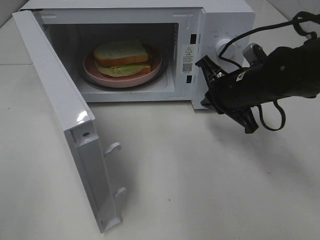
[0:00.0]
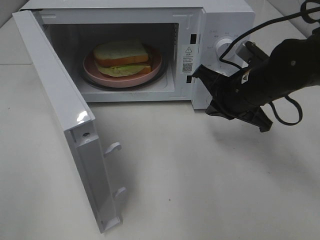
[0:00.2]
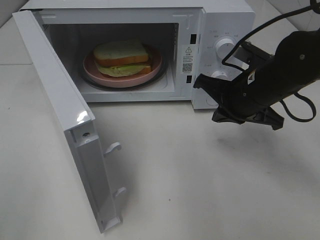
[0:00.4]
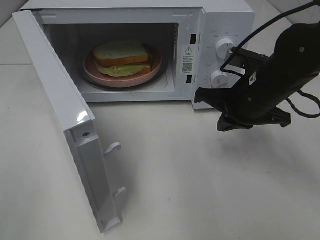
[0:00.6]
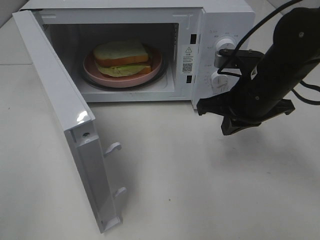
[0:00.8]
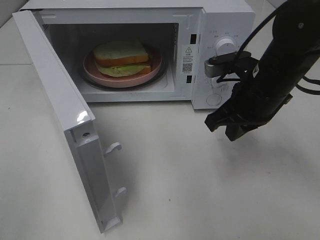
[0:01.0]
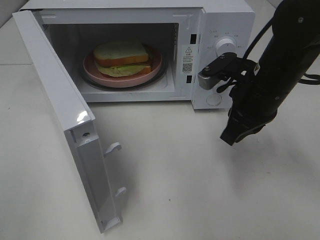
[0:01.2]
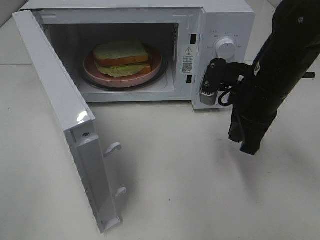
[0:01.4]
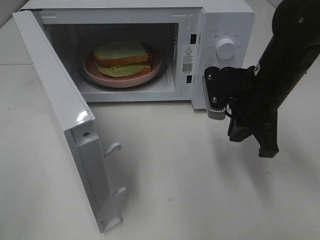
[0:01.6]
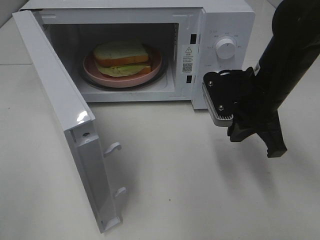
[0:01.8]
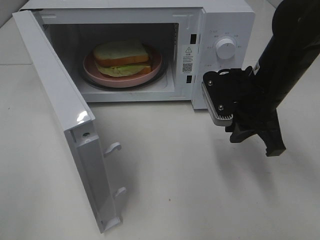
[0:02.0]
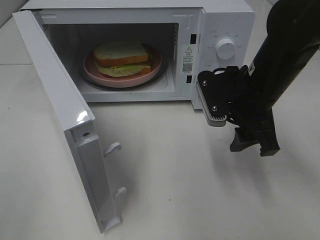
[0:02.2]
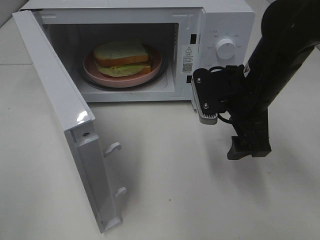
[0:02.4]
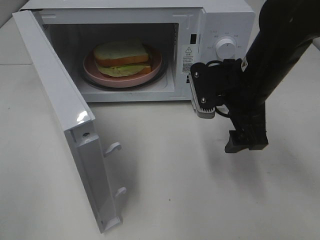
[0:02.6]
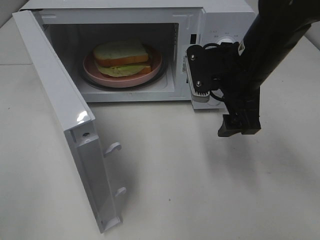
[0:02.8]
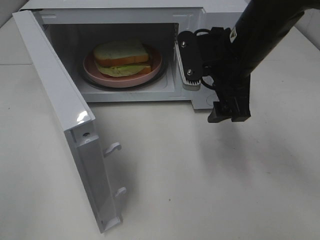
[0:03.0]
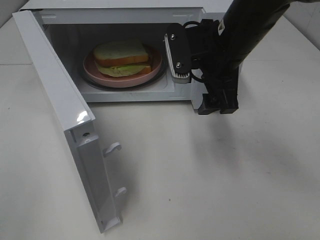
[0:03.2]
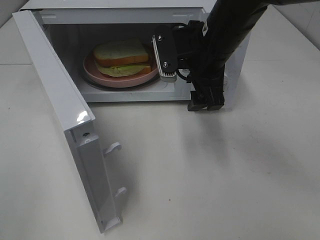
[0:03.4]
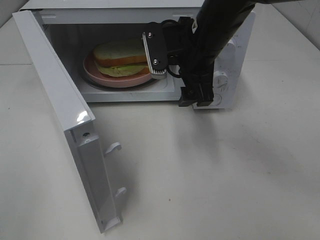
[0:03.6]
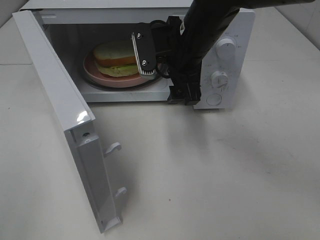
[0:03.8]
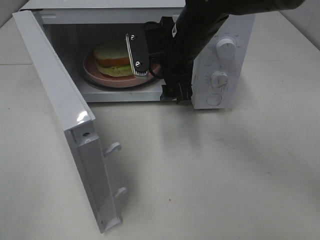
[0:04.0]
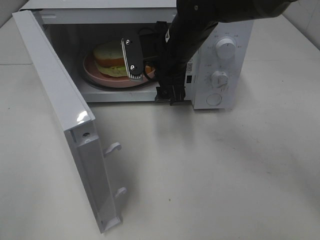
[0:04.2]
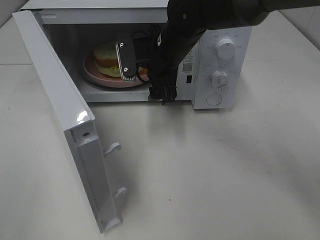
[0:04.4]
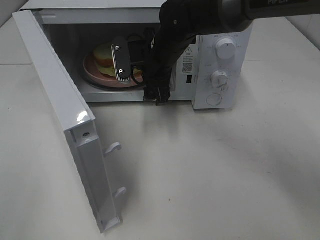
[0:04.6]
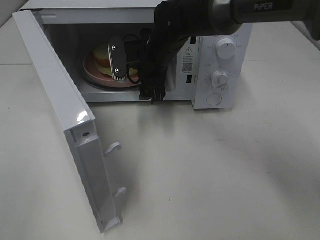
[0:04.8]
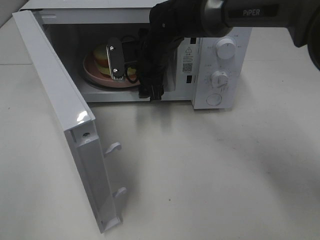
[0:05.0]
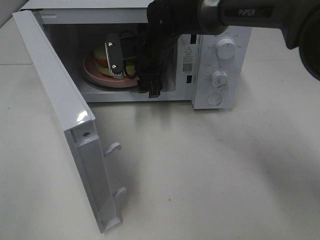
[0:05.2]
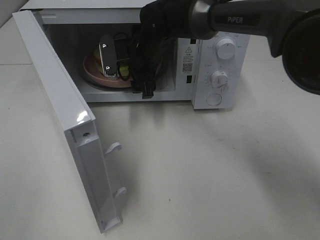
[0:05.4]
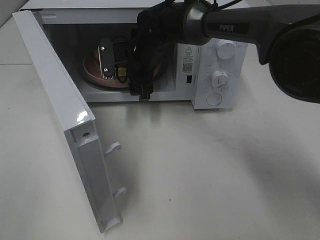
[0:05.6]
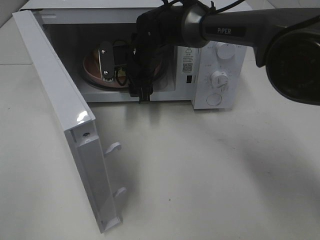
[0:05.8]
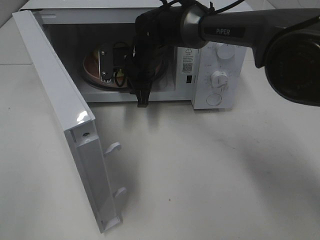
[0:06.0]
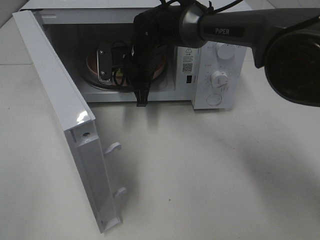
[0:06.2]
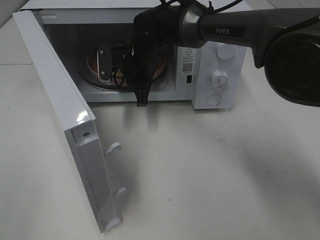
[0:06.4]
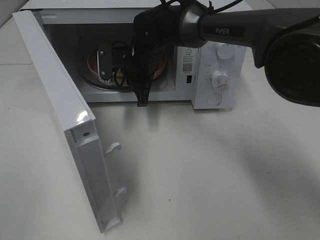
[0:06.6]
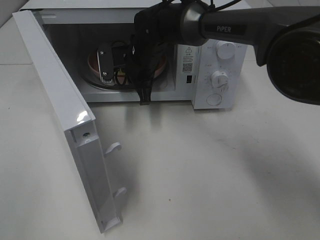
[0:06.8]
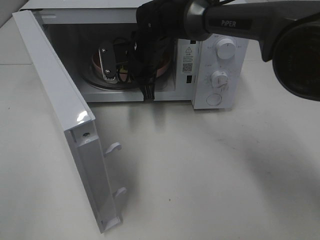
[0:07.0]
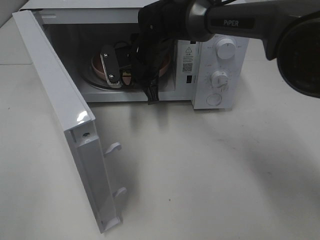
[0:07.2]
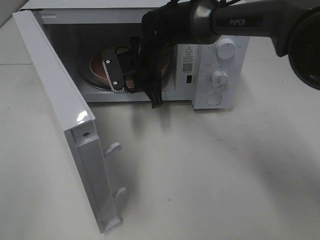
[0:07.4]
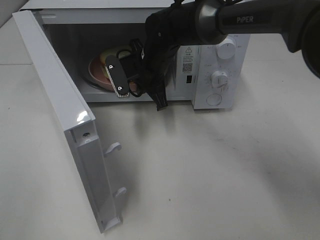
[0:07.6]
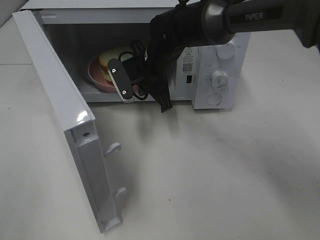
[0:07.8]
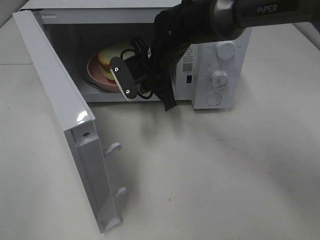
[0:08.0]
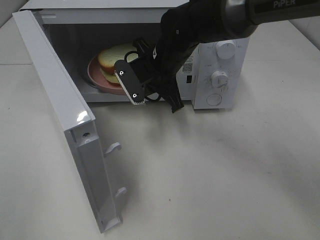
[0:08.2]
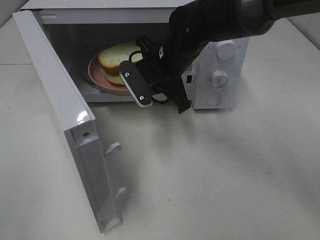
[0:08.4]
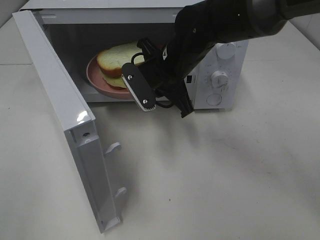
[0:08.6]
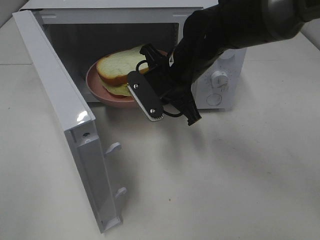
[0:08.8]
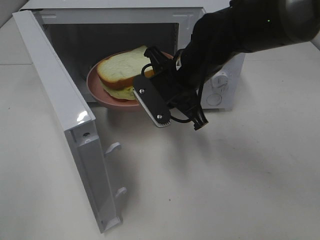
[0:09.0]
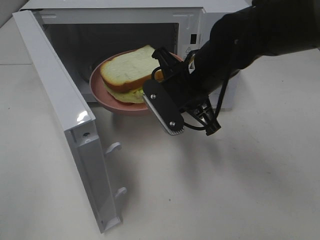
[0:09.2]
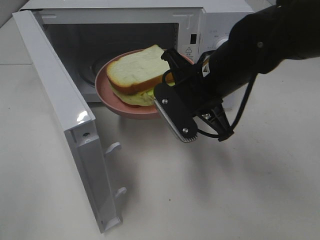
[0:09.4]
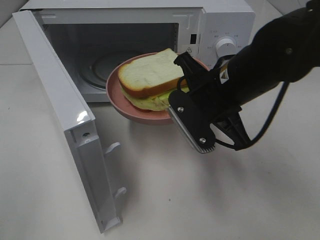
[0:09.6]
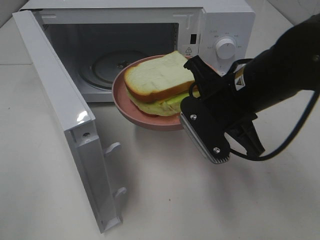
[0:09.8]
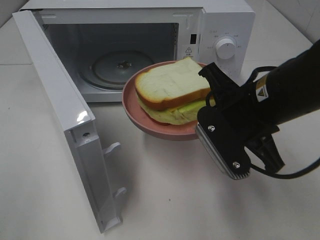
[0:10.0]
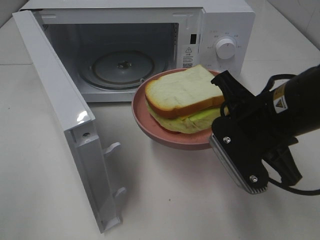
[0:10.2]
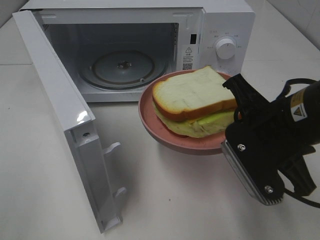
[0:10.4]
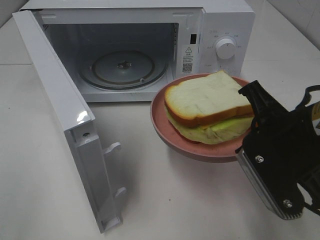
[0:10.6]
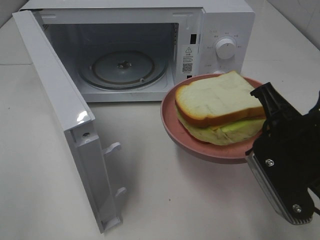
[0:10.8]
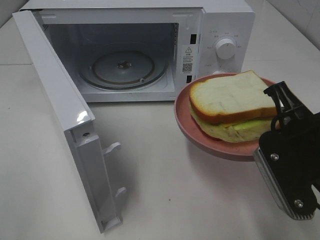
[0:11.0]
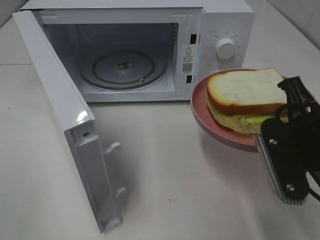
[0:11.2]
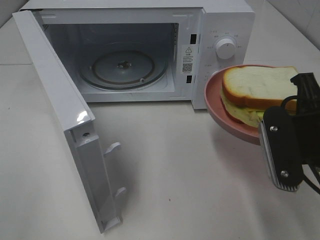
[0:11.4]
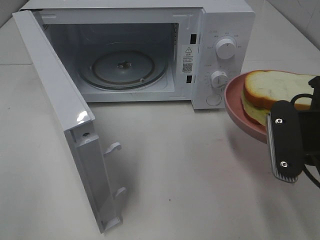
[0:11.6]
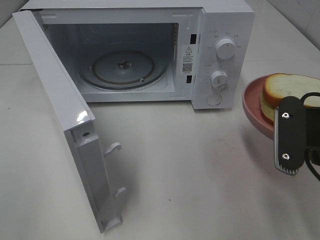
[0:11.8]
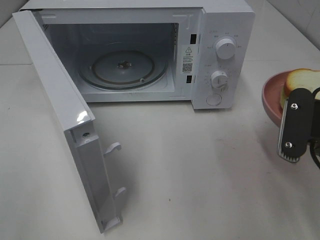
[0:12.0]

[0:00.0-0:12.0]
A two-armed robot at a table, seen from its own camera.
Task of the whole recording: Heat Sandwich.
Step, 0:00.0 to 0:06.4: Right hand: grab the plate with the sandwich.
0:01.6 to 0:03.0: The right gripper moves about 5 cm, and opens its fingers.
0:03.0 to 0:04.4: The right gripper travels to the left and forward by approximately 10 cm.
0:04.4 to 0:06.0: The right gripper goes approximately 5 cm forward, and closes.
0:06.0 to 0:07.6: There are only small adjustments of the grippers.
0:07.6 to 0:09.0: The right gripper is displaced backward and to the right by approximately 10 cm.
0:09.0 to 0:10.4: The right gripper moves backward and to the right, roughly 15 cm.
0:10.4 to 0:12.0: The right gripper goes about 5 cm to the right.

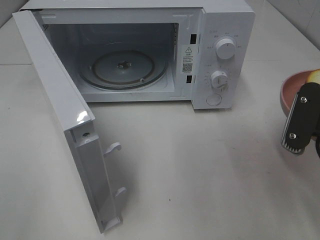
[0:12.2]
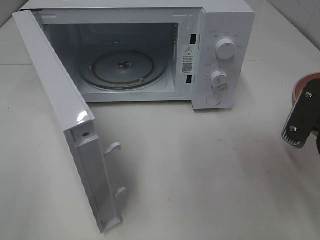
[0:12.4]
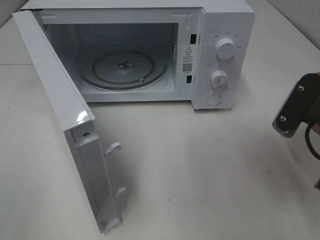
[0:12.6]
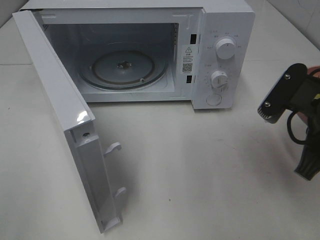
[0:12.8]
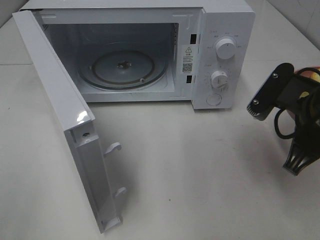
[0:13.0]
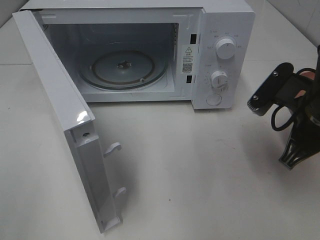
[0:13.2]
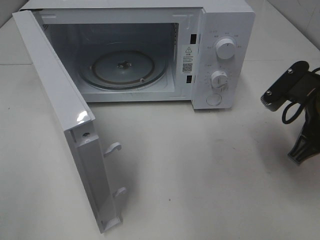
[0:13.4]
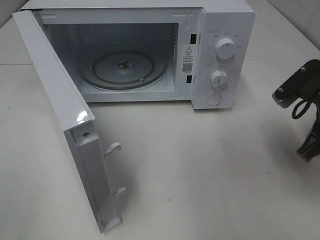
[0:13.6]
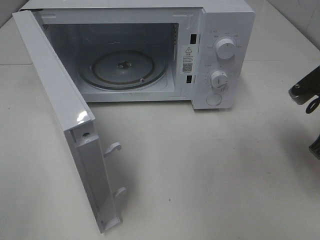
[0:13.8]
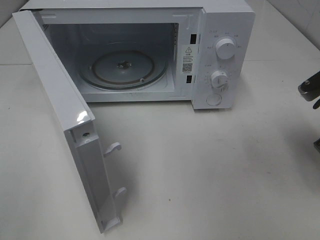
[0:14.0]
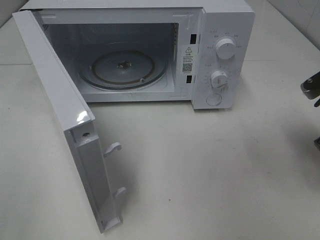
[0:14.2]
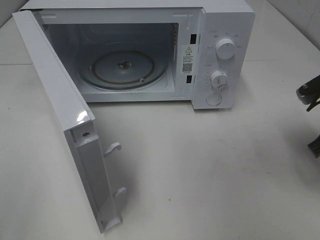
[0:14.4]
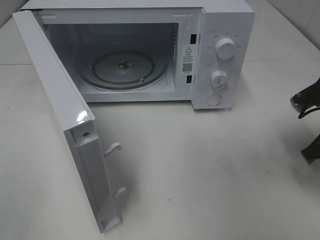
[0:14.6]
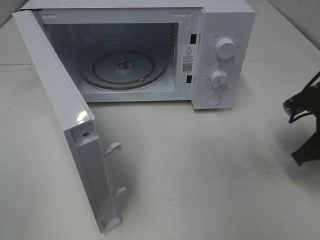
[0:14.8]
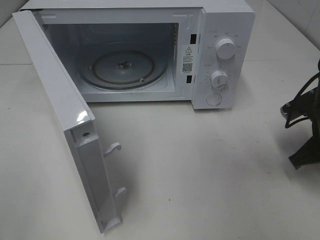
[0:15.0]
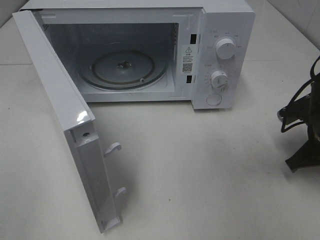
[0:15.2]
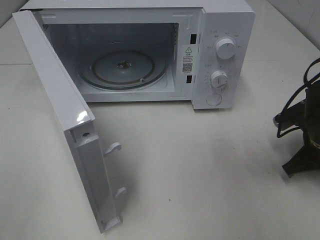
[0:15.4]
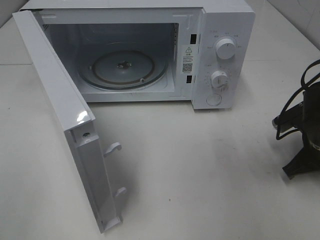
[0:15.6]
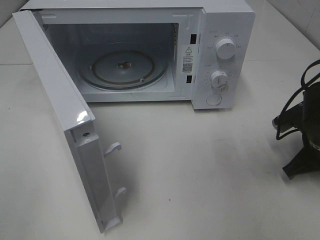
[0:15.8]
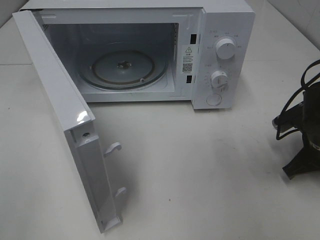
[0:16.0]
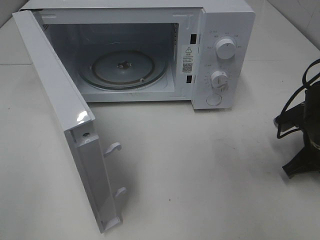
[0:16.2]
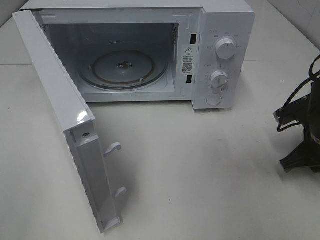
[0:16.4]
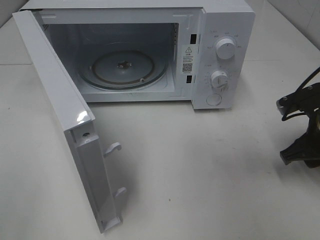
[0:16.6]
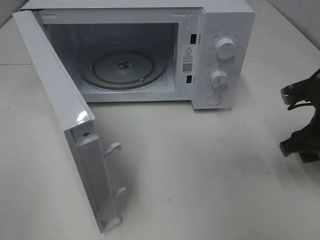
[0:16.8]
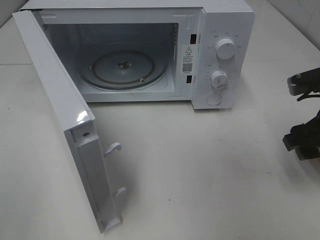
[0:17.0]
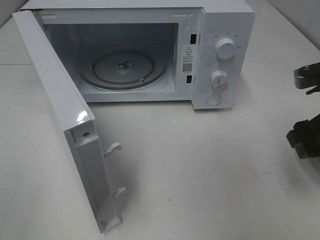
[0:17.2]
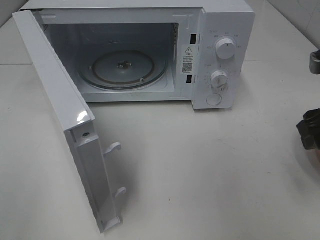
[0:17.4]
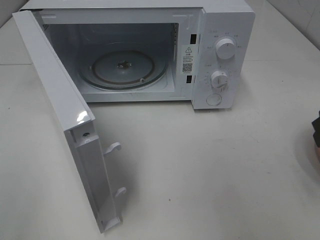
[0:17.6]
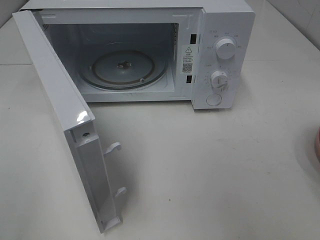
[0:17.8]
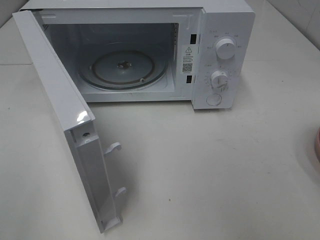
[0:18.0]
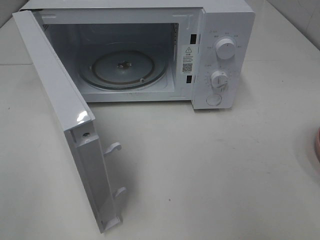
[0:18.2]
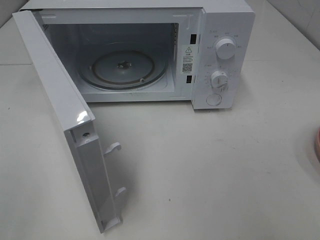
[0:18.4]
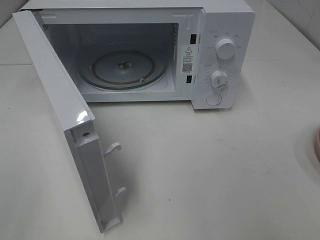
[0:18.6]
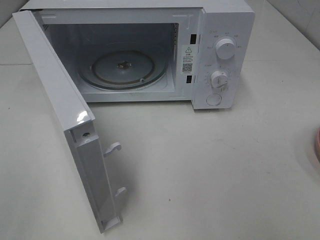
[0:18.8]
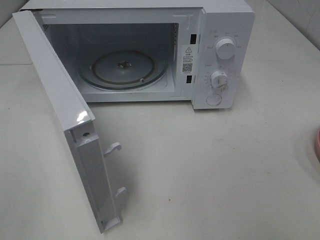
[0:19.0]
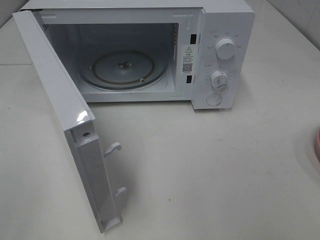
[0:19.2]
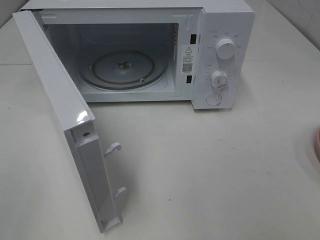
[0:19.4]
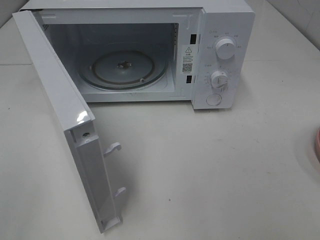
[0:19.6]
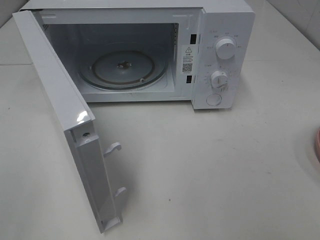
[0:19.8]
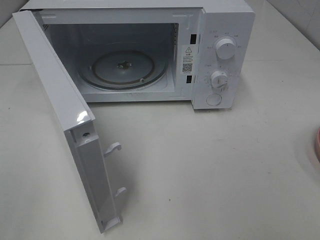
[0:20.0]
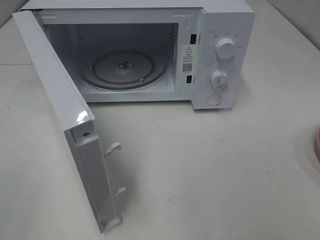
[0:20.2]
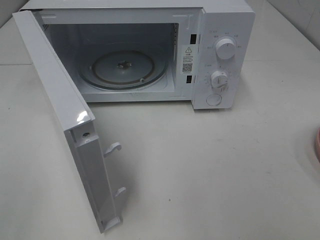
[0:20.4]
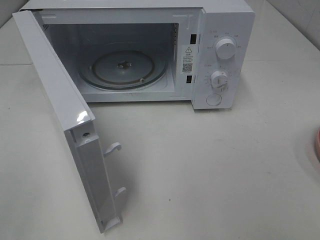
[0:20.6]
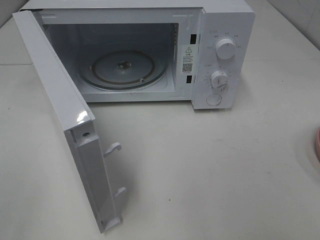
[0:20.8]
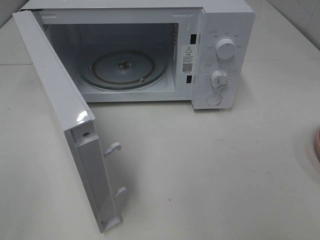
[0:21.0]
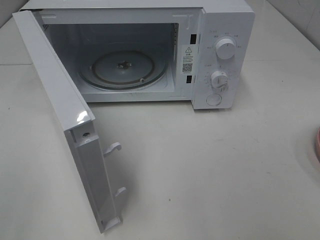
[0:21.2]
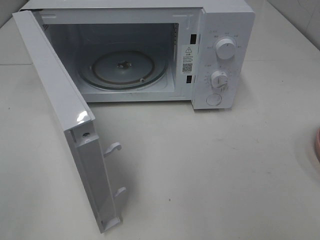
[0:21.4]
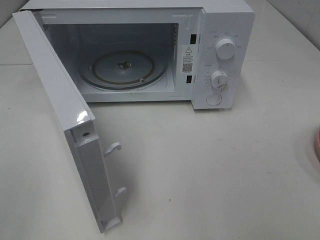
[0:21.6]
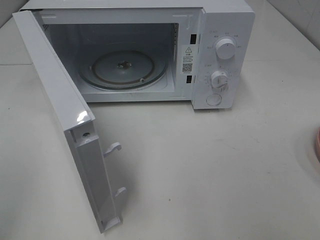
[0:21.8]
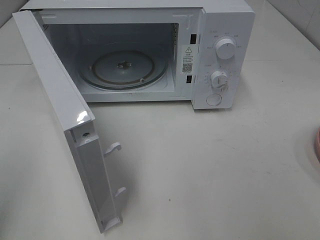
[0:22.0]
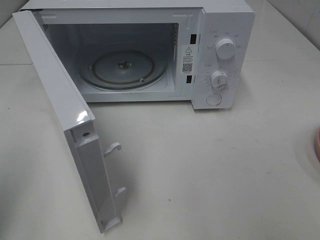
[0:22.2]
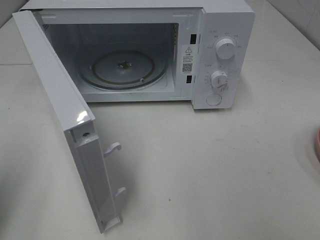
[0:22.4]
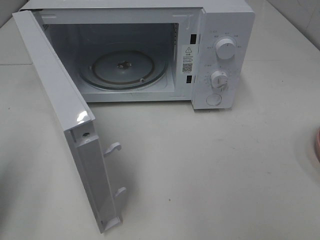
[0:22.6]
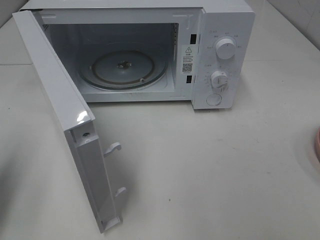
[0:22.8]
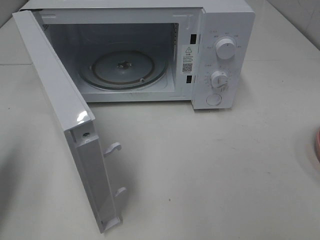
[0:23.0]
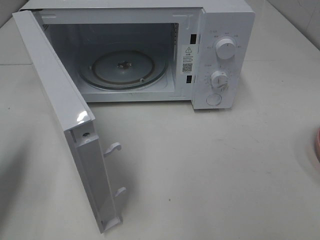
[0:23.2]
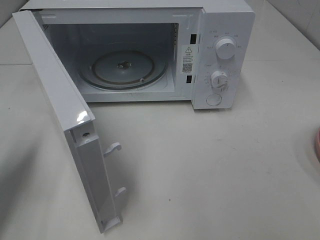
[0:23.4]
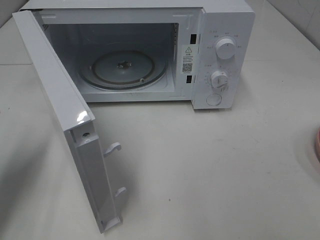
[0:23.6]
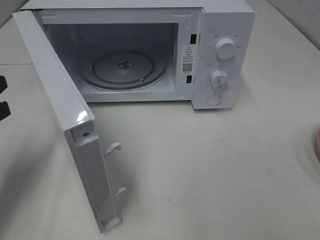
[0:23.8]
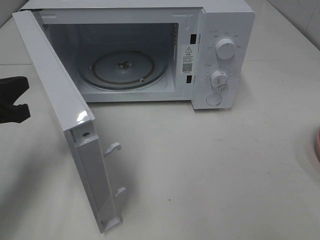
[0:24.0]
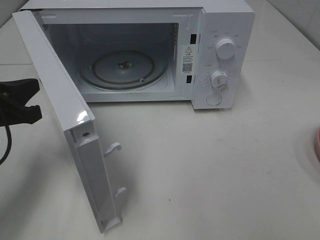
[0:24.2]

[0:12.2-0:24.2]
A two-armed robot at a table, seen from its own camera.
Task of the whole recording: Heat Sandwich.
Step, 0:12.2 to 0:17.0: Right hand: place the plate on the table.
0:12.2 to 0:13.8: The right gripper moves forward, roughly 10 cm.
0:13.8 to 0:15.2: The right gripper travels downward by some 10 cm.
0:15.2 to 0:16.6: The right gripper opens.
0:16.6 to 0:18.2: The right gripper shifts about 20 cm upward and backward.
0:19.8 to 0:21.2: Both grippers stay about where they are.
0:21.2 to 0:22.6: The left gripper is displaced forward by about 15 cm, and closes its fingers.
0:22.6 to 0:24.2: The left gripper travels forward, to the right and downward by roughly 15 cm.
